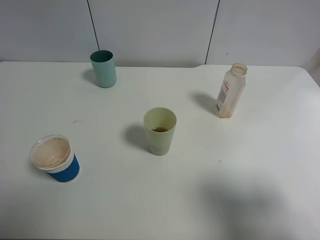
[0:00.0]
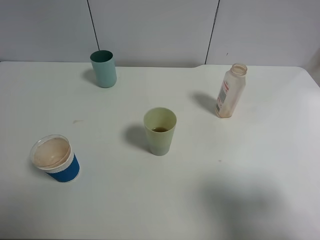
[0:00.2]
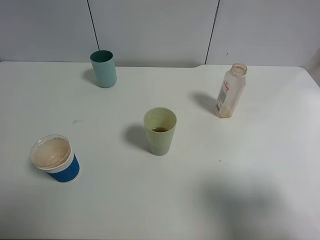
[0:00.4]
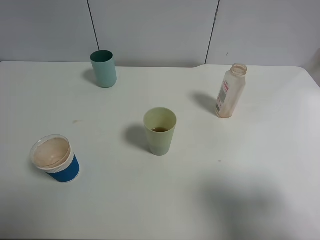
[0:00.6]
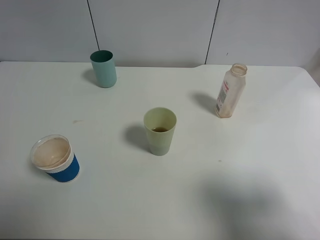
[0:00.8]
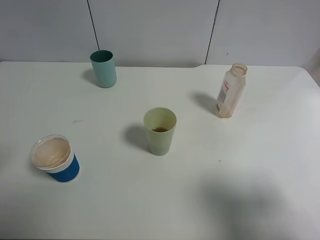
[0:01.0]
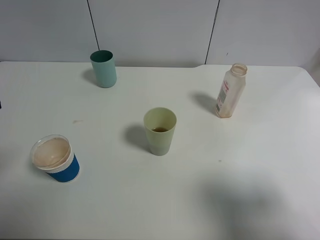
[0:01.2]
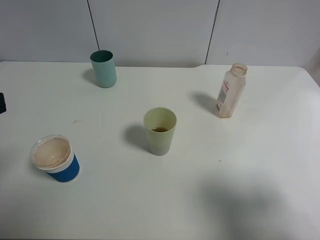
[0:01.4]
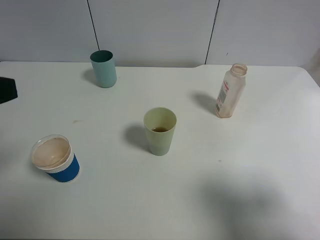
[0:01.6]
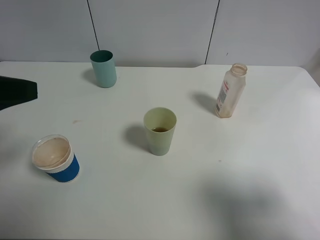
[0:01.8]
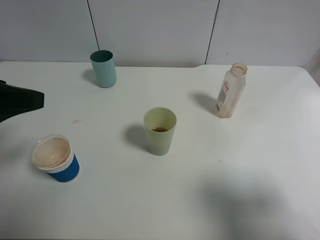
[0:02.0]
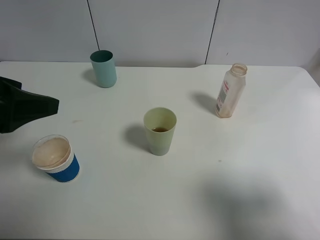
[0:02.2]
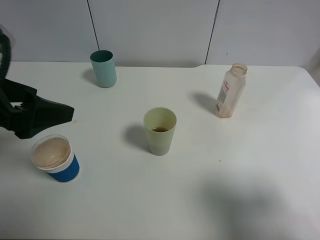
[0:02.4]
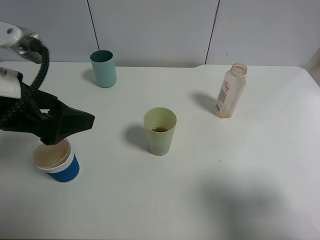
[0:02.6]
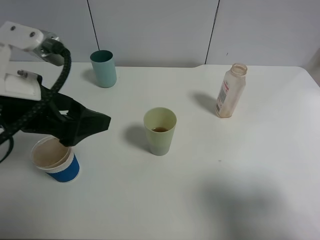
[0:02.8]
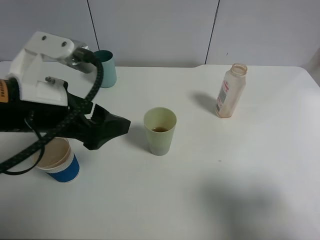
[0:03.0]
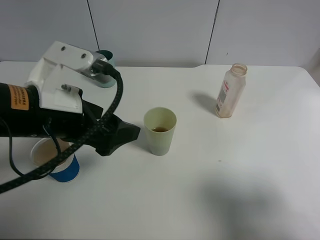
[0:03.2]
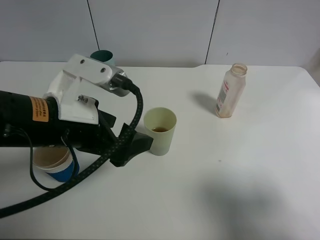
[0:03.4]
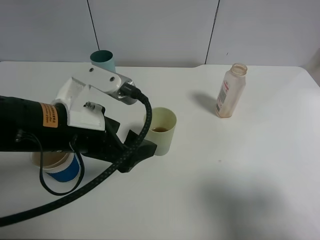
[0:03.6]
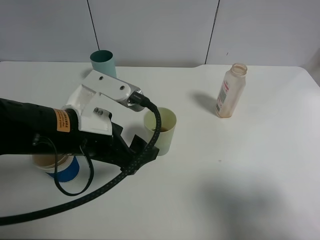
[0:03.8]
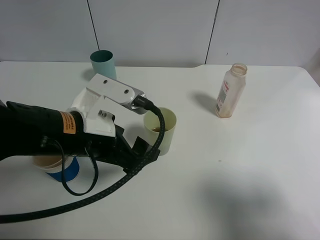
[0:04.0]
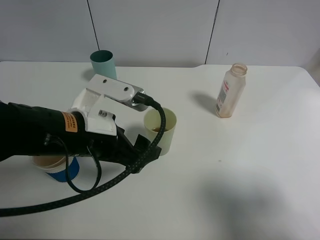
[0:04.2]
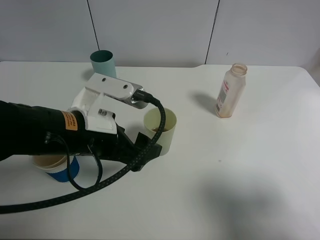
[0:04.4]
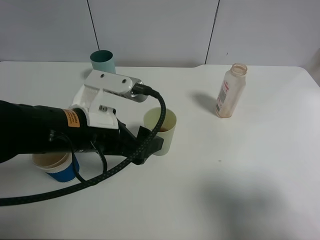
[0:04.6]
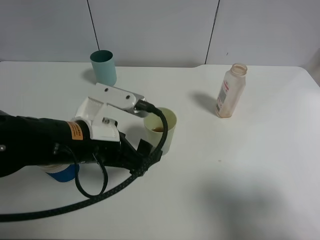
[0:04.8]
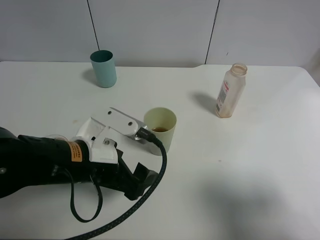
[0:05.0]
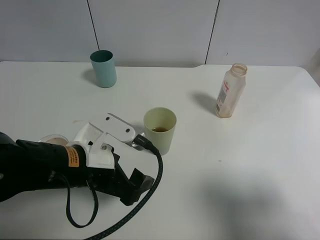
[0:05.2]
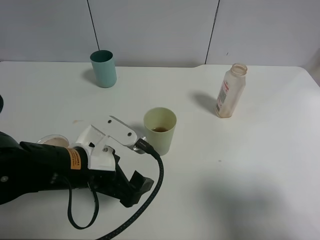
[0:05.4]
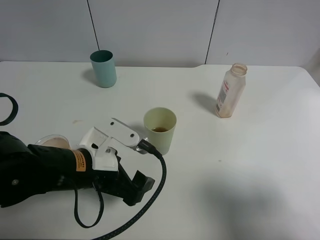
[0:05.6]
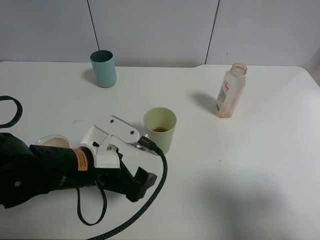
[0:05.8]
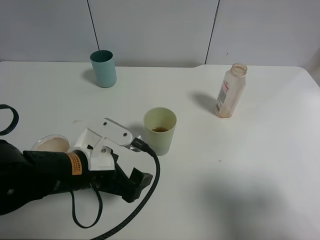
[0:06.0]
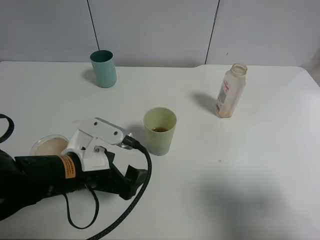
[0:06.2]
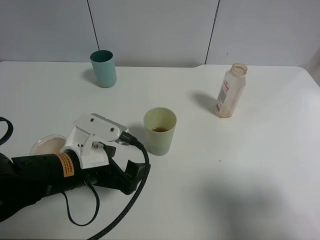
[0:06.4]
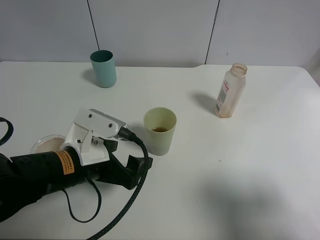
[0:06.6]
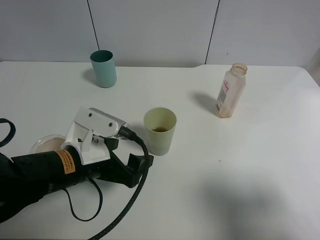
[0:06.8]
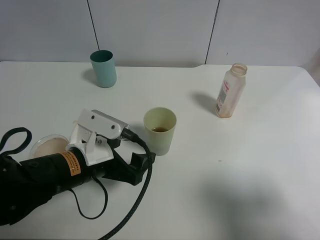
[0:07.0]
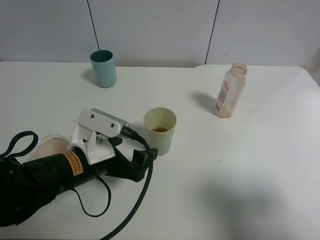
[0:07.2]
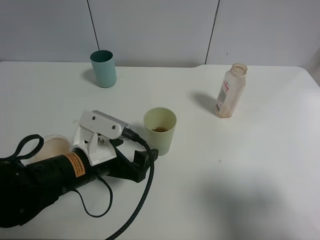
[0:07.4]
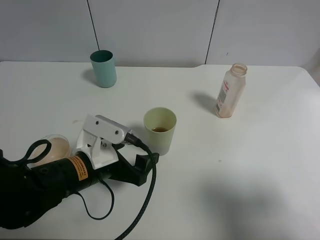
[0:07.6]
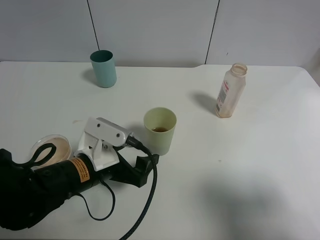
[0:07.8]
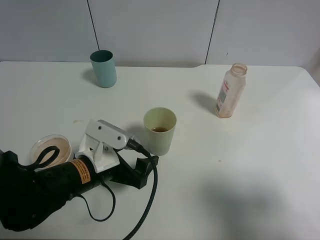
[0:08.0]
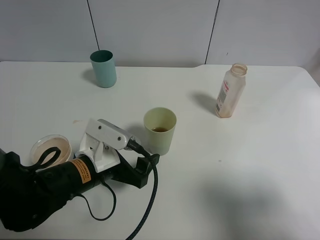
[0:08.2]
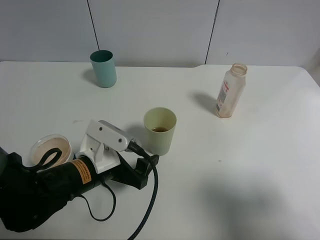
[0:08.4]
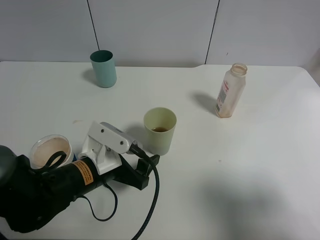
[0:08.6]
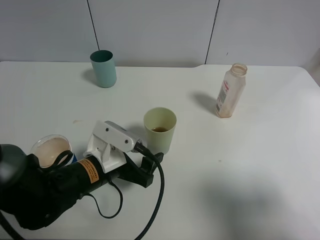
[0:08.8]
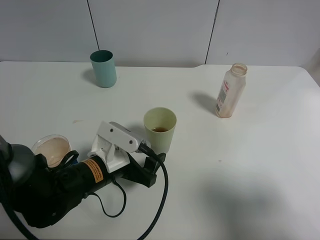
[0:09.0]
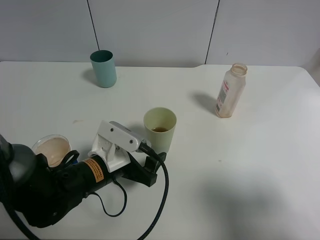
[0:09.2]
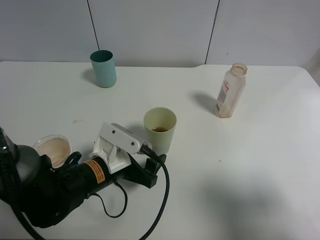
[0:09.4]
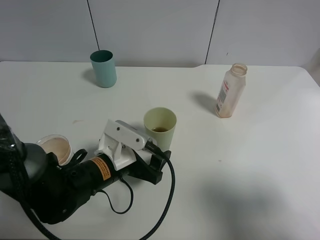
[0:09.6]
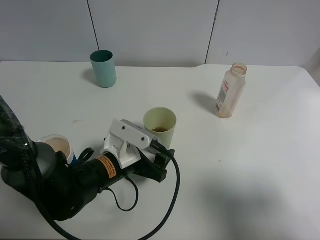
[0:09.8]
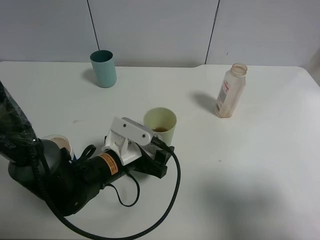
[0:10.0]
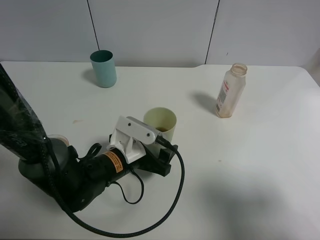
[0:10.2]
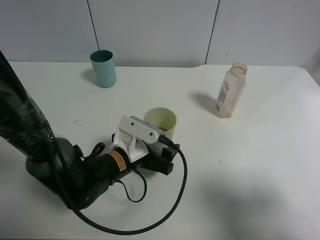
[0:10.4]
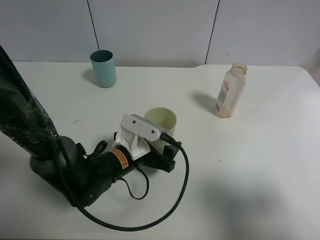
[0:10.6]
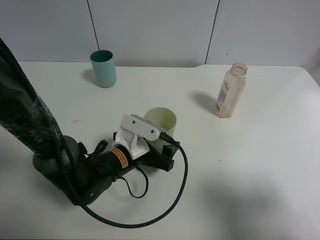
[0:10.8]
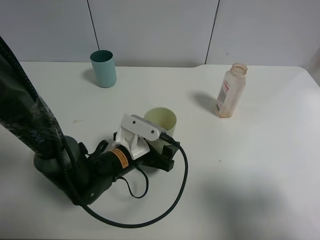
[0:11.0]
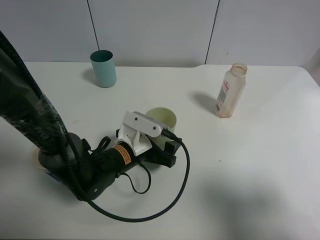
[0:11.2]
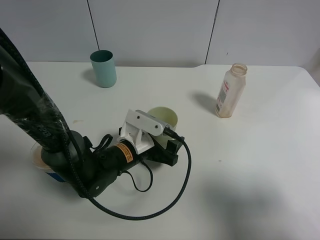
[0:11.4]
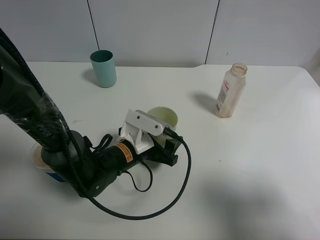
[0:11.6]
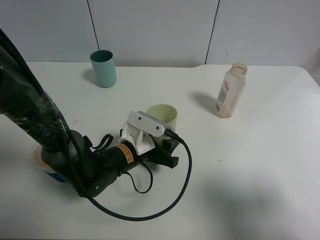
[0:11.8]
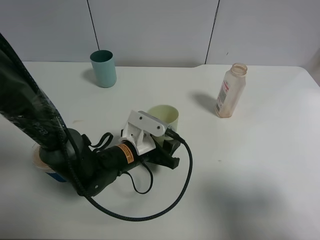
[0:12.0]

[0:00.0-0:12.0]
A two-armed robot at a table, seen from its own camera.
Task of the whole recording: use a clamp to hold the bottle of the drink, pour the beverage into a random cup, then clamp the cup containing the drink and pour the drink into another random cup.
0:01.6 to 0:03.0: The left gripper travels to the right, forward and downward by some 15 cm.
0:03.0 to 0:04.4: The left gripper heads downward and to the right, covering approximately 10 cm.
0:04.4 to 0:06.0: The left gripper shifts some 5 cm downward.
0:07.6 to 0:09.0: The grippers make only small movements.
0:09.0 to 0:10.4: The grippers move only a little.
0:10.4 to 0:12.0: The left gripper closes its fingers.

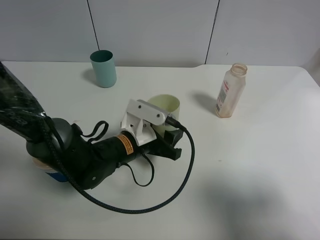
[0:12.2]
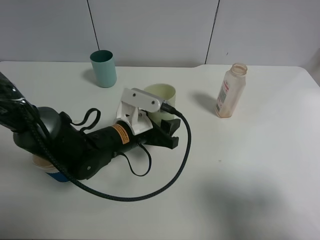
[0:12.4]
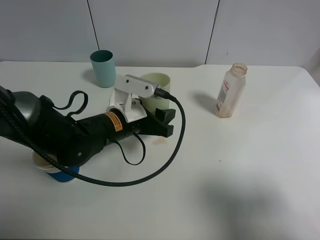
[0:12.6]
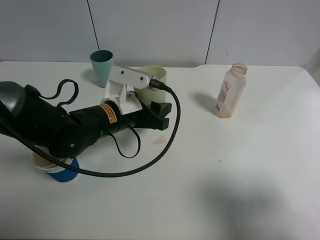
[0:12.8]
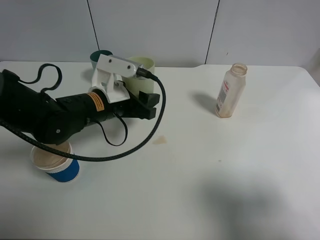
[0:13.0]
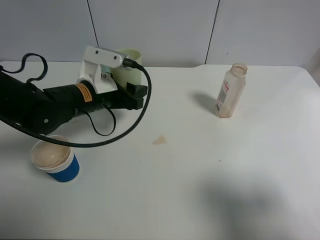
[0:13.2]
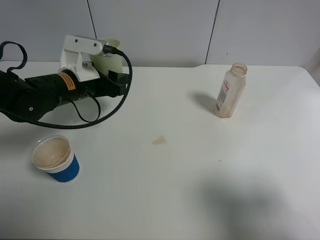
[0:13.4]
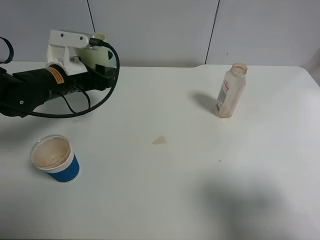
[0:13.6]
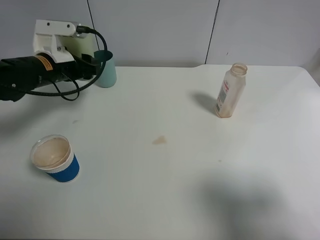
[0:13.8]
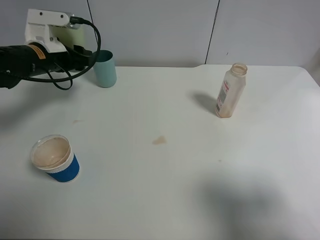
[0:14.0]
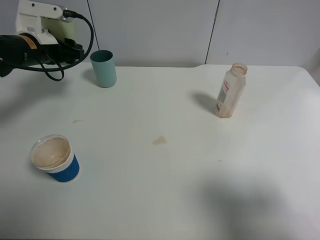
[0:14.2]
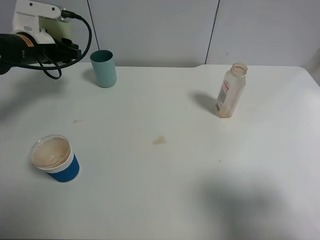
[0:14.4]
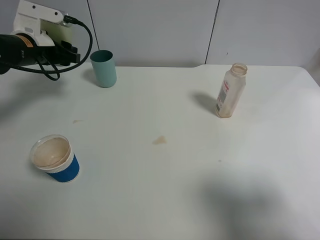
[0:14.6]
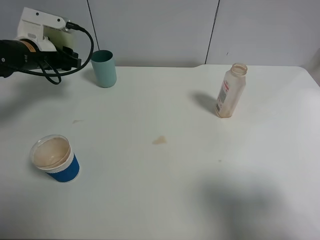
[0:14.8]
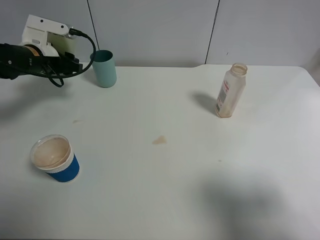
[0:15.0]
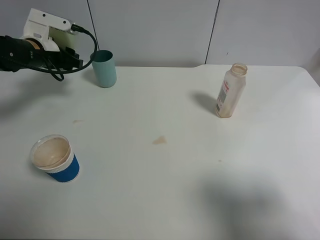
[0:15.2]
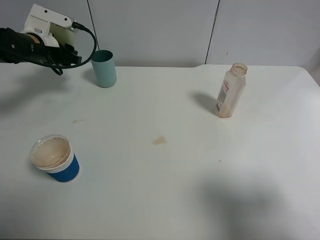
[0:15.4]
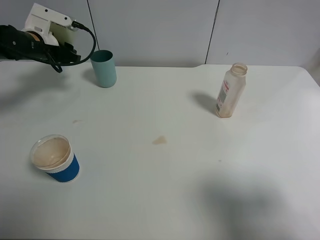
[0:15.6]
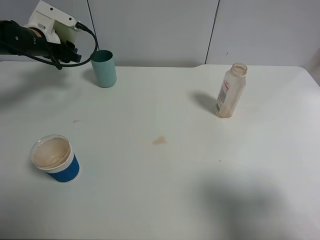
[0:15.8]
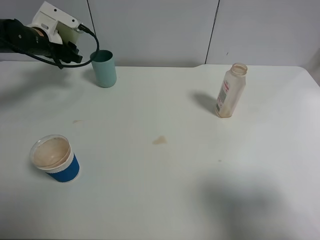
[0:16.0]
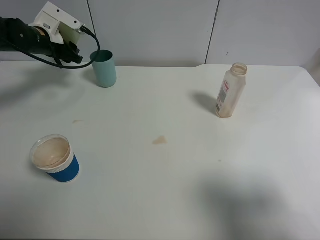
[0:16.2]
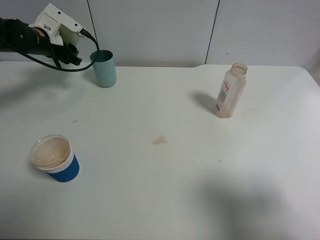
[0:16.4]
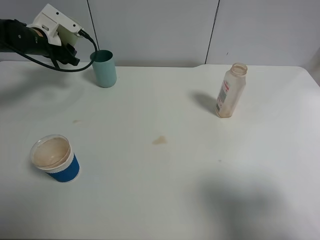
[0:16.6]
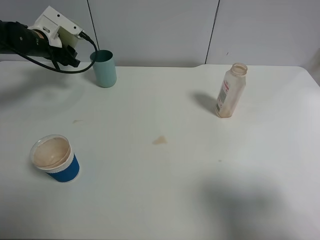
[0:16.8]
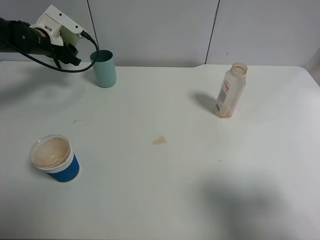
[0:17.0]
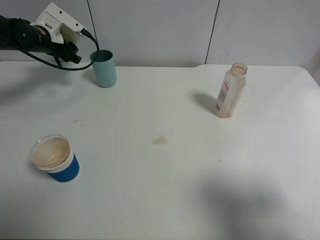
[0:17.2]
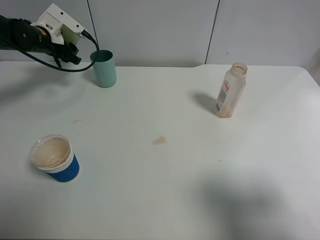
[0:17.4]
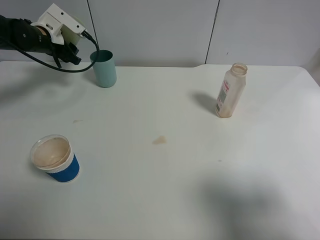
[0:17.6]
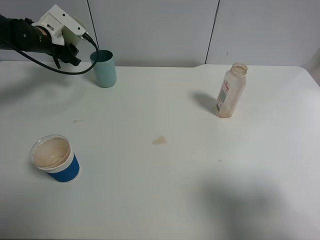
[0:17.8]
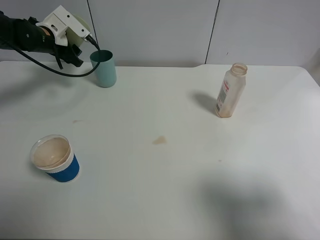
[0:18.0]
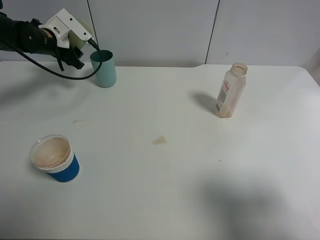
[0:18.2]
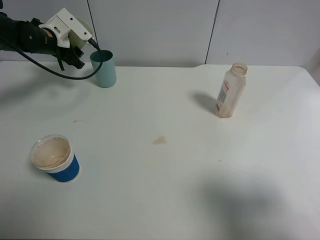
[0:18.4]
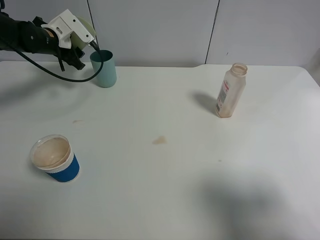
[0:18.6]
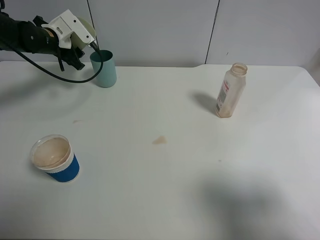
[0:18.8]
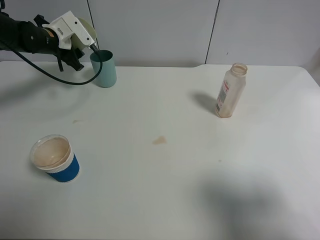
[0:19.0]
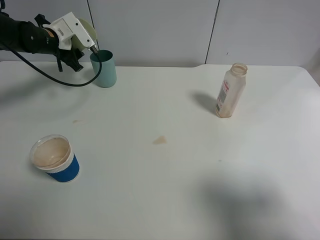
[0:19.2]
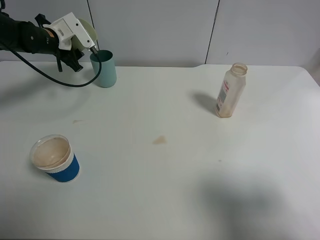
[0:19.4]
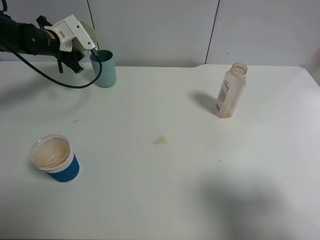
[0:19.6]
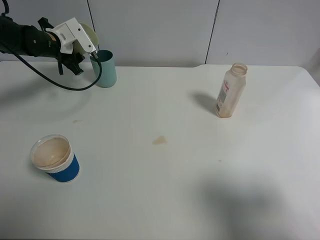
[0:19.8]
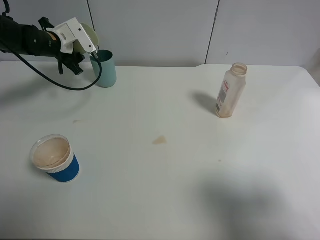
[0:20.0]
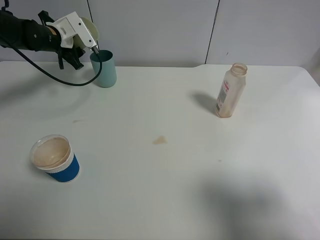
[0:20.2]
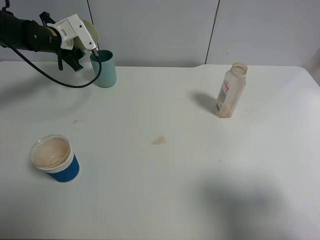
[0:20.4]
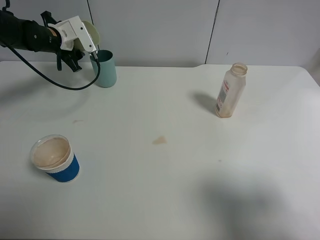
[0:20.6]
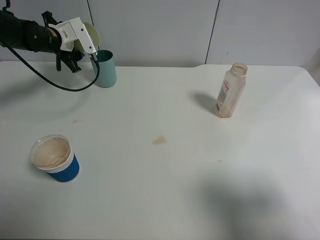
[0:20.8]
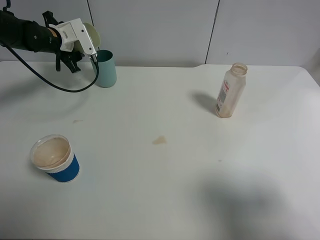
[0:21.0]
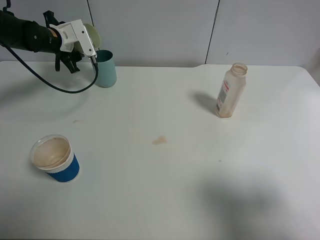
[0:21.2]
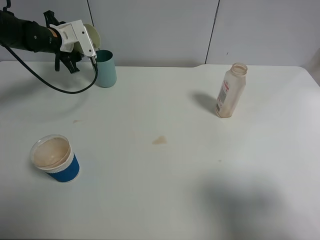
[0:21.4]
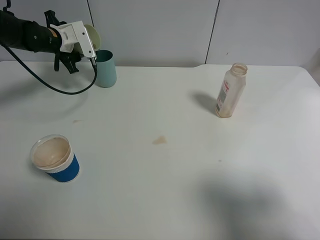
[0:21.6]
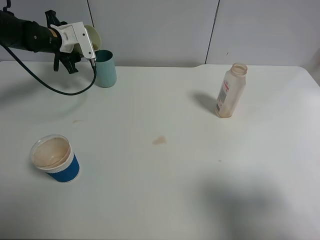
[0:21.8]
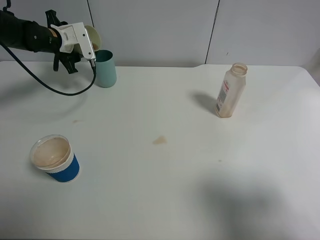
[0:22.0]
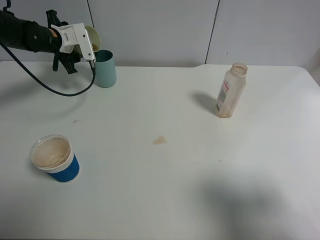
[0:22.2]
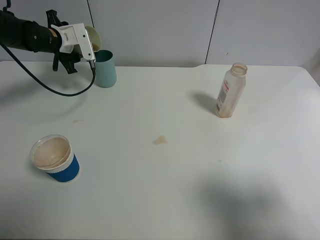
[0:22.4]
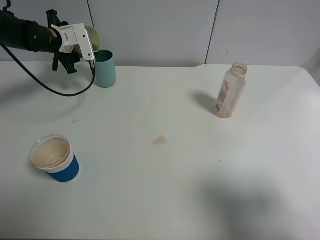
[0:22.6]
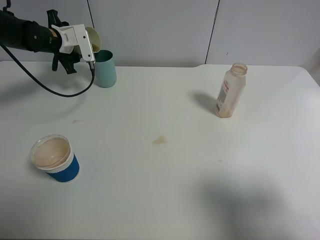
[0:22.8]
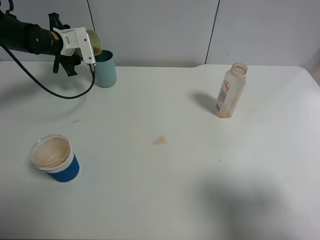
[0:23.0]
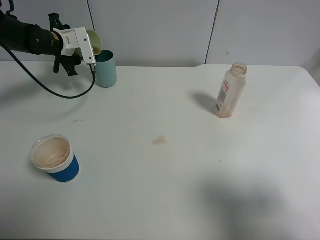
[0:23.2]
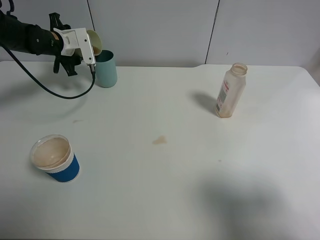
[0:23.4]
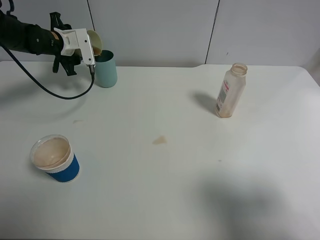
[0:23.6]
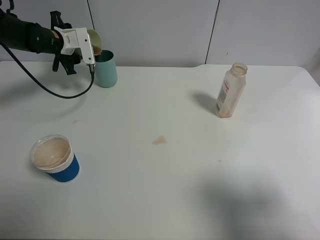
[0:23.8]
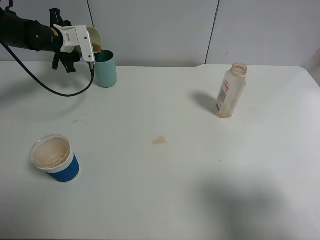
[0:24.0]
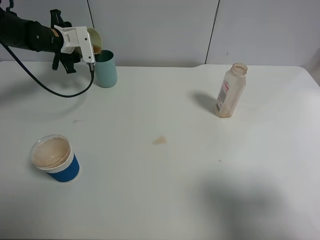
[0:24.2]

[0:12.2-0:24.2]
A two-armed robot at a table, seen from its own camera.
Task of the whole recording: use a clamp to hold the bottle of the drink, pour the beverage into a random cup, then clamp the cup containing the drink and pour the drink into another random cup.
0:12.2 to 0:13.8: The left gripper moves to the left, forward and upward, approximately 20 cm.
0:13.8 to 0:15.2: The left gripper travels to the left and forward by roughly 10 cm.
0:15.2 to 0:16.6: The left gripper shifts about 5 cm forward.
0:16.6 to 0:18.2: The grippers make only small movements.
0:18.2 to 0:19.8: There are only small adjustments of the grippers.
0:19.8 to 0:22.6: The grippers make only small movements.
0:22.6 to 0:24.2: The two grippers keep their place.
